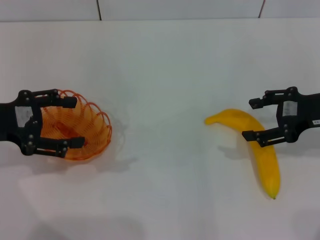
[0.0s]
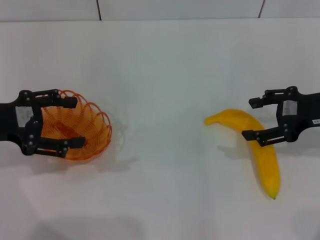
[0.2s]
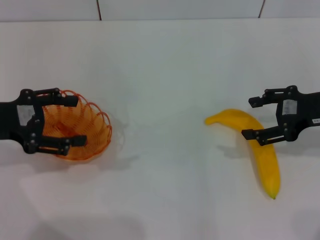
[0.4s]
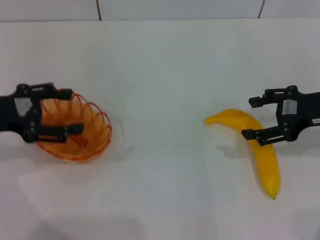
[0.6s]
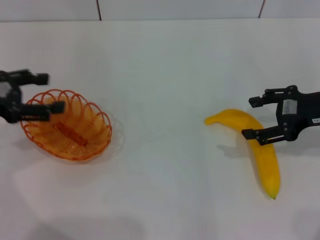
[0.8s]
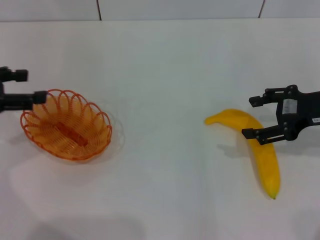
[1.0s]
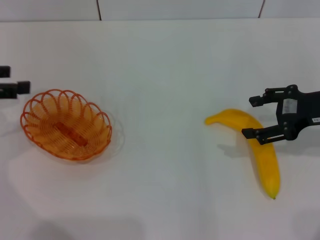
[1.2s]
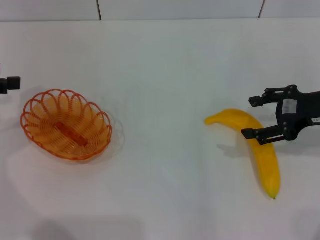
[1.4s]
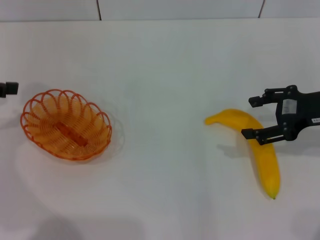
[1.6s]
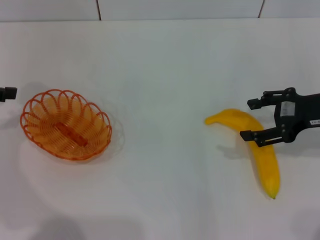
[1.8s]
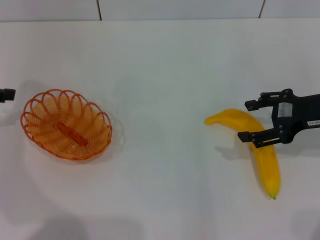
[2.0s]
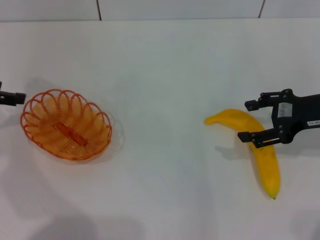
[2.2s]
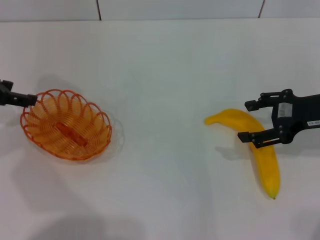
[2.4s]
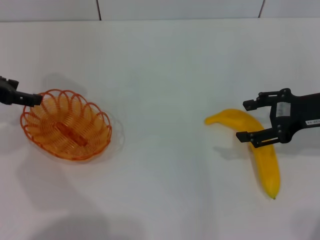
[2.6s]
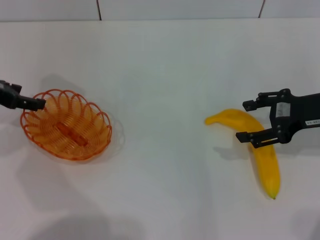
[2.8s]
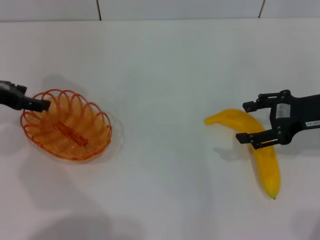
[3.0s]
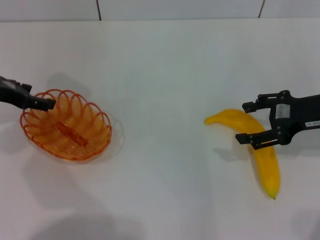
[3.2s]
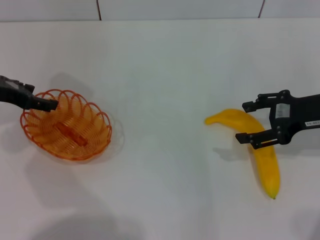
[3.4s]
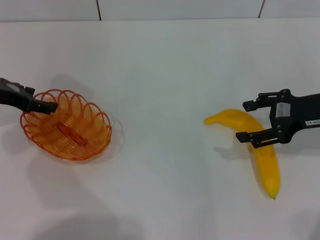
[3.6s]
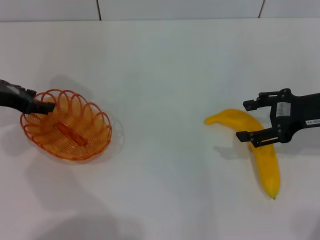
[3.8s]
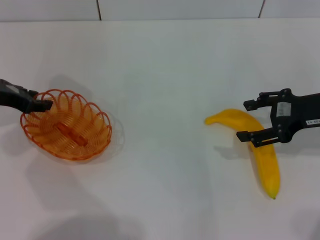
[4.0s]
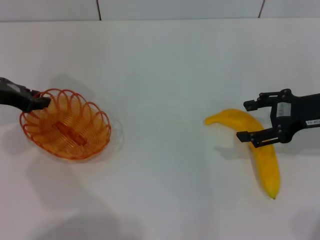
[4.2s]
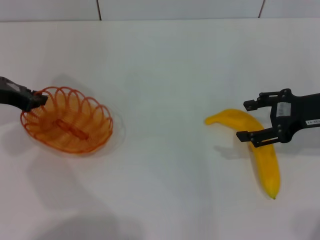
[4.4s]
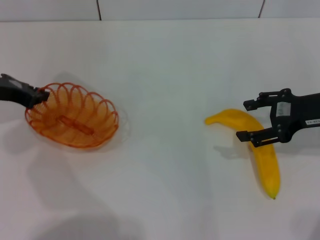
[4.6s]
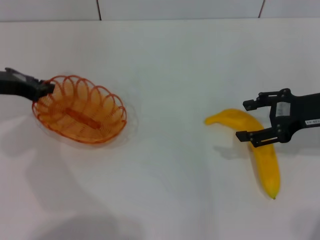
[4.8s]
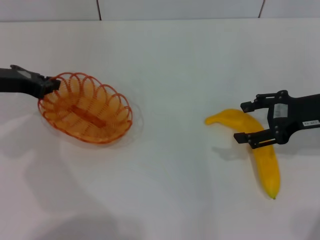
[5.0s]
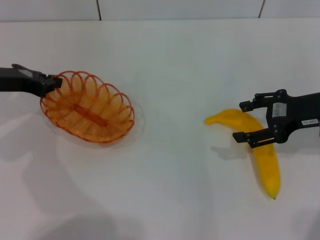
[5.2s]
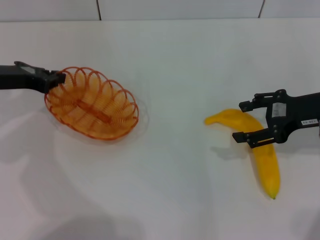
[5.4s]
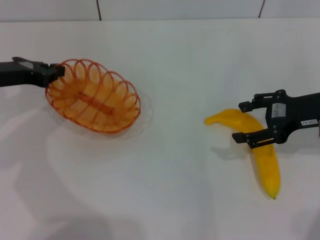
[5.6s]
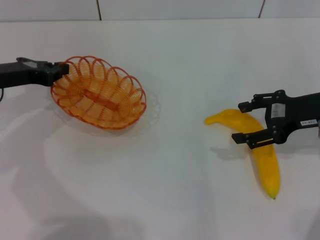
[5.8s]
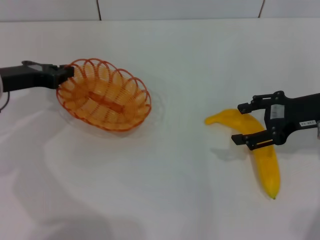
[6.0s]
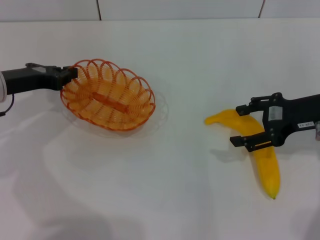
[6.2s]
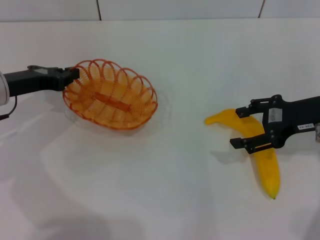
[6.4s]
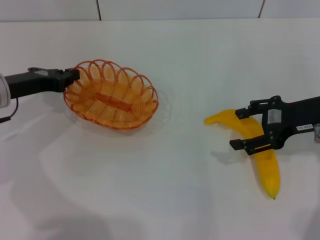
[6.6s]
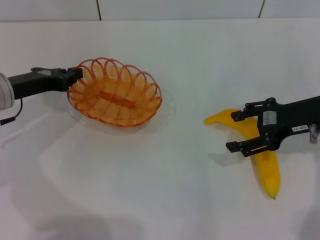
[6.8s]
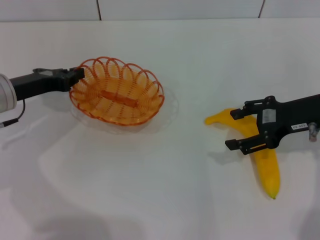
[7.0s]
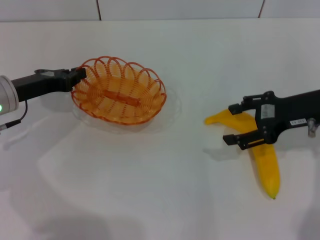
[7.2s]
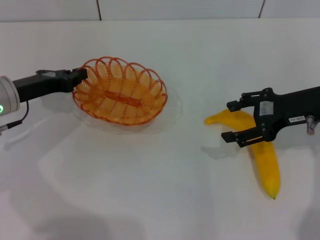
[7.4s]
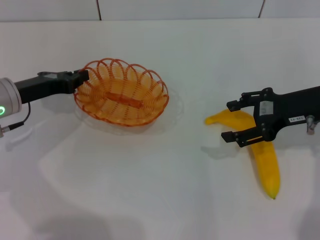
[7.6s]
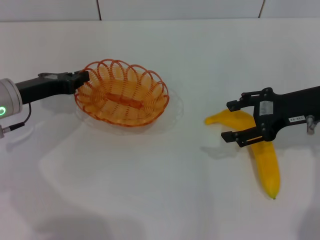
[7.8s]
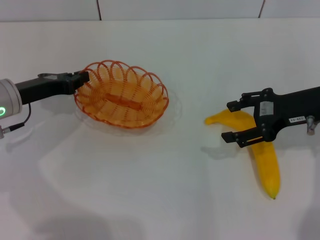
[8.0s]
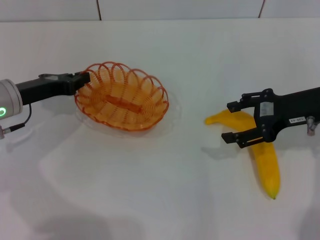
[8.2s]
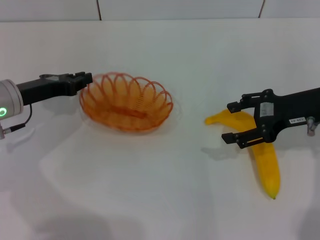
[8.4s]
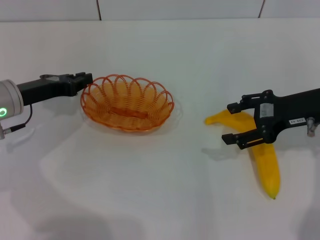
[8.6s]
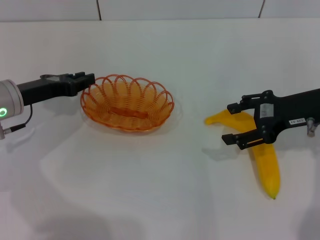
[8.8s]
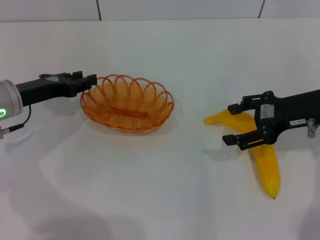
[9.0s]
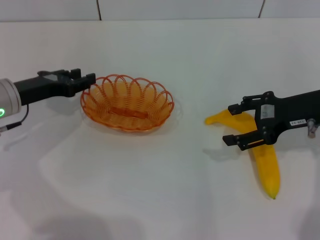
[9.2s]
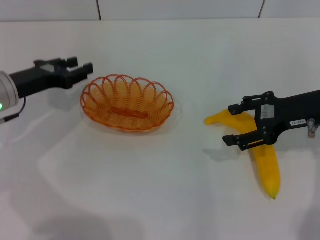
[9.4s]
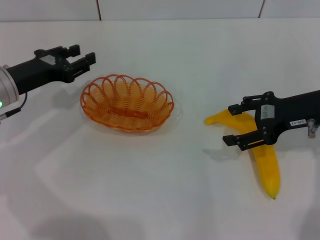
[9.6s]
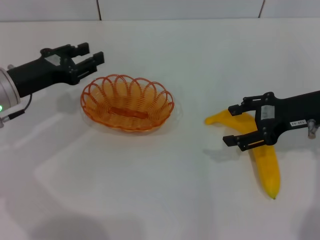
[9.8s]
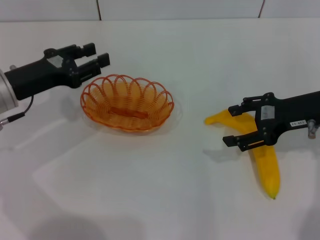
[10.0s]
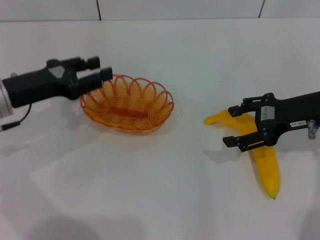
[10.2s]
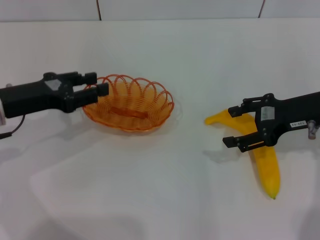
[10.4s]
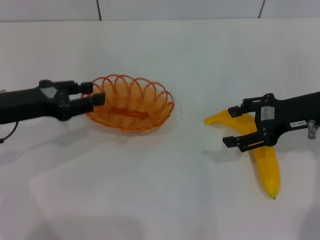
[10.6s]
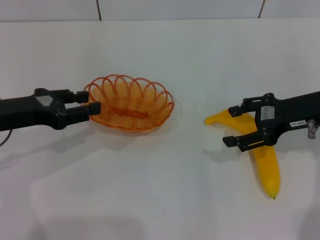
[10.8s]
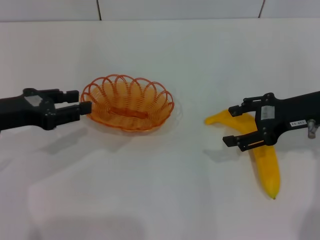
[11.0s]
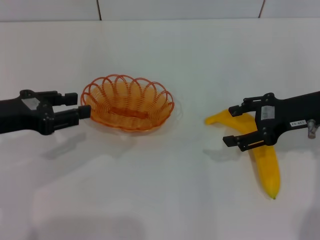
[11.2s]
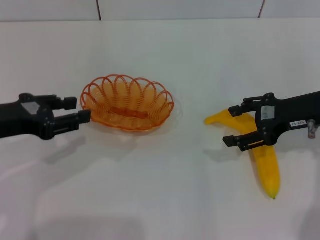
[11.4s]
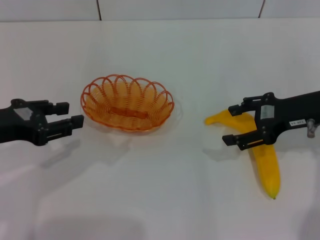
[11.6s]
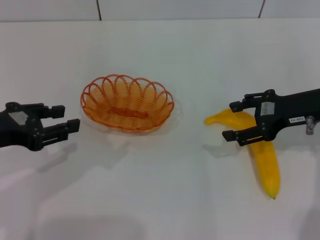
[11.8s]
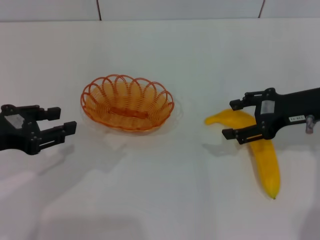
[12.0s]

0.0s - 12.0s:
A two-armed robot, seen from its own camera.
Step, 0.0s - 6.4s: Pick up the basket with the left gripper.
Step, 6.6s - 9.2s: Place the basket in the center of view with the left gripper.
0.0s - 1.6s: The left gripper shifts approximately 5 cm to the left.
1.6s - 3.0s: The left gripper is displaced to the right by some 5 cm.
3.0s - 4.4s: The left gripper closes.
6.0s - 7.6s: The grippers stay close to where they were, moving slightly.
7.6s - 9.0s: The left gripper opens.
9.0s - 10.4s: The left gripper ends up some 5 cm from where it was.
10.4s - 12.0s: The left gripper shifts about 10 cm backward.

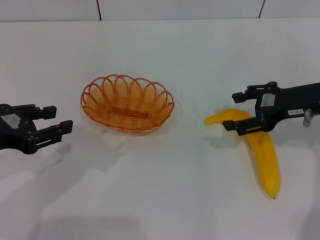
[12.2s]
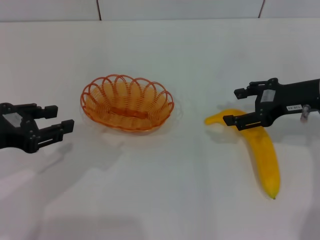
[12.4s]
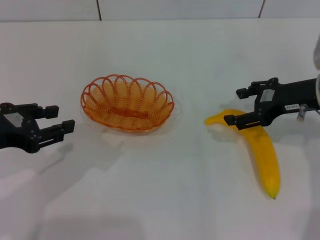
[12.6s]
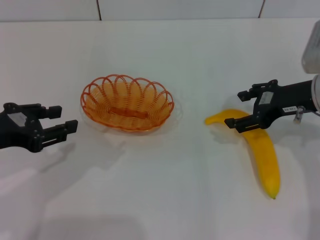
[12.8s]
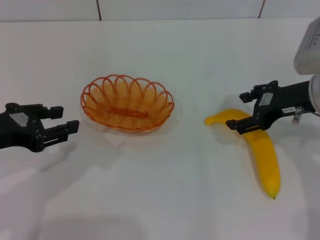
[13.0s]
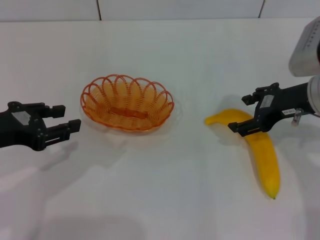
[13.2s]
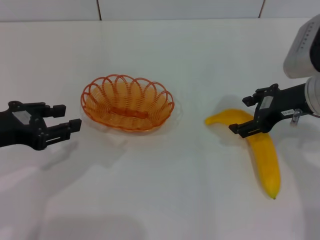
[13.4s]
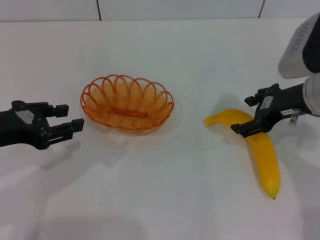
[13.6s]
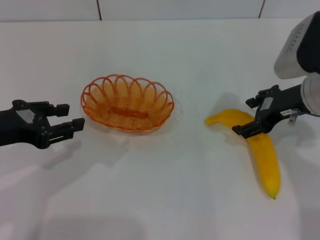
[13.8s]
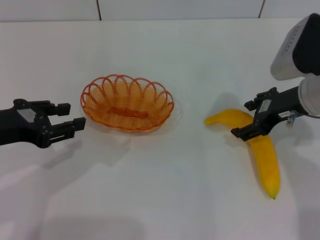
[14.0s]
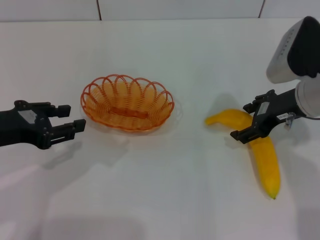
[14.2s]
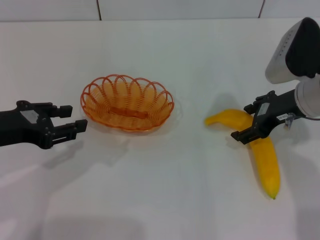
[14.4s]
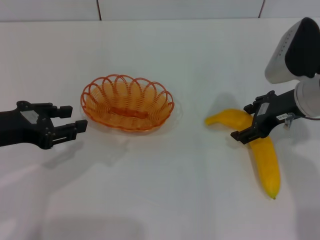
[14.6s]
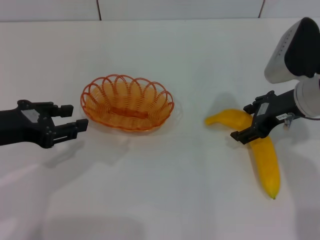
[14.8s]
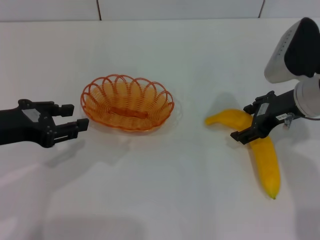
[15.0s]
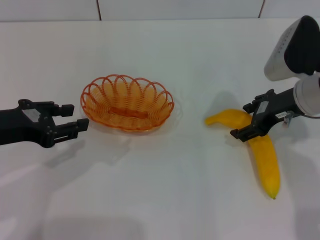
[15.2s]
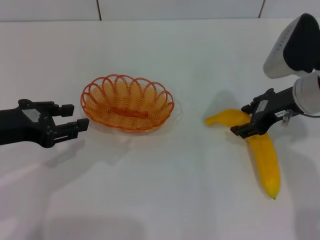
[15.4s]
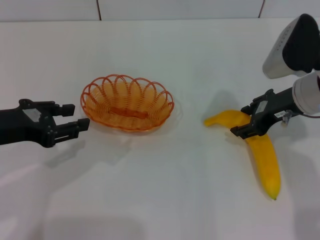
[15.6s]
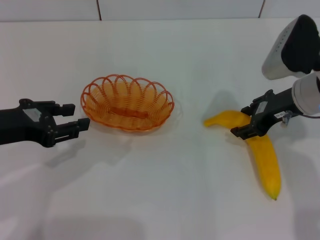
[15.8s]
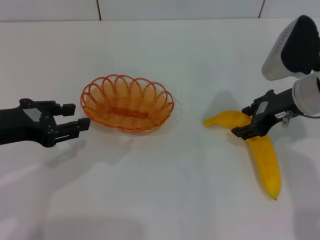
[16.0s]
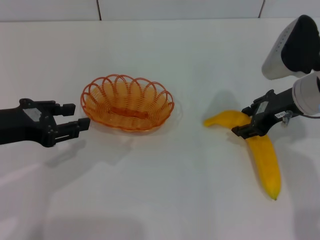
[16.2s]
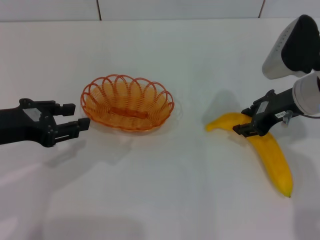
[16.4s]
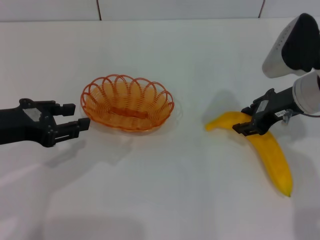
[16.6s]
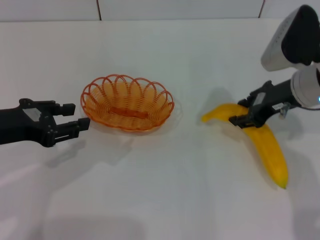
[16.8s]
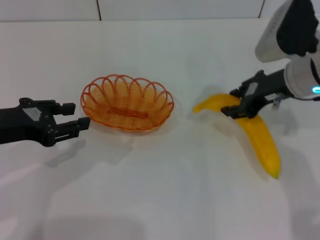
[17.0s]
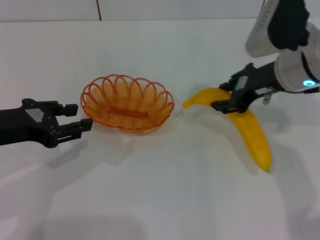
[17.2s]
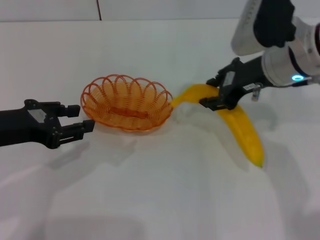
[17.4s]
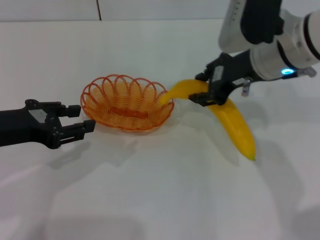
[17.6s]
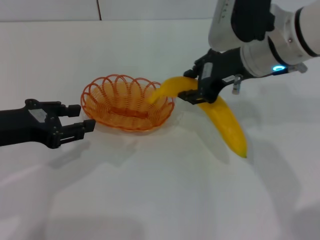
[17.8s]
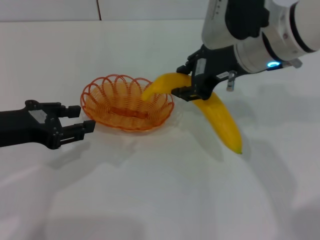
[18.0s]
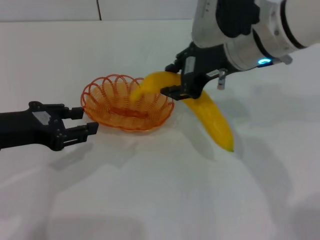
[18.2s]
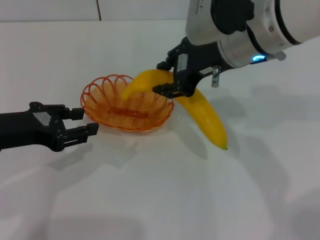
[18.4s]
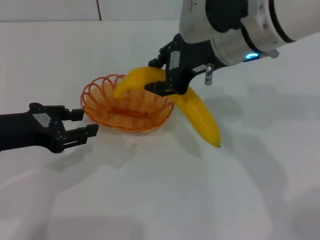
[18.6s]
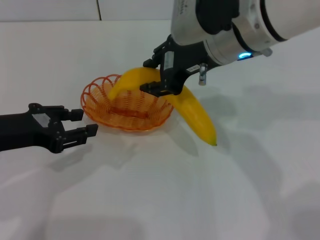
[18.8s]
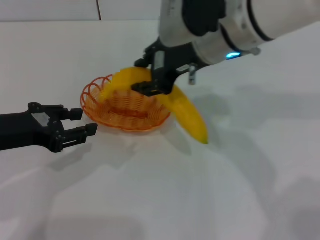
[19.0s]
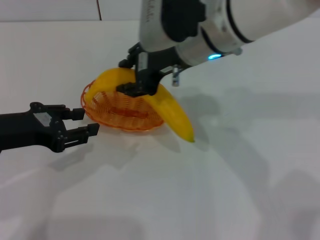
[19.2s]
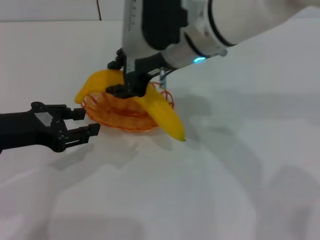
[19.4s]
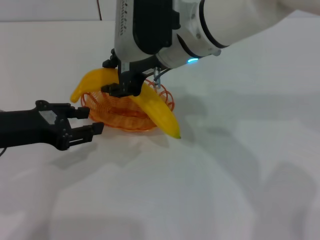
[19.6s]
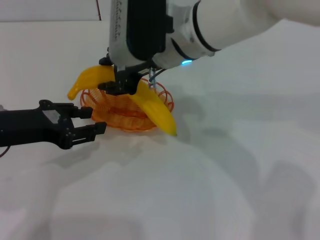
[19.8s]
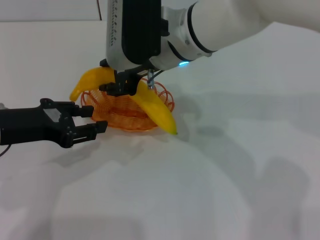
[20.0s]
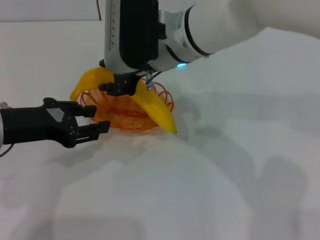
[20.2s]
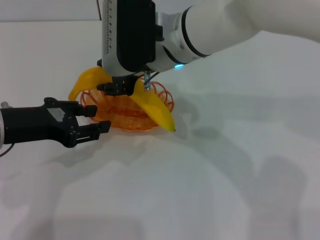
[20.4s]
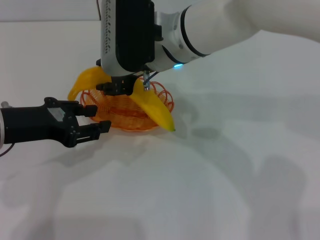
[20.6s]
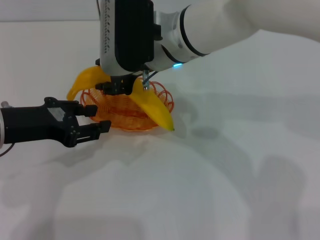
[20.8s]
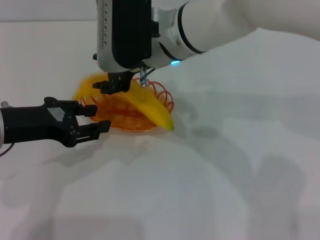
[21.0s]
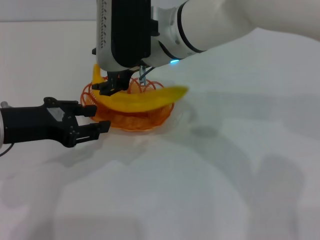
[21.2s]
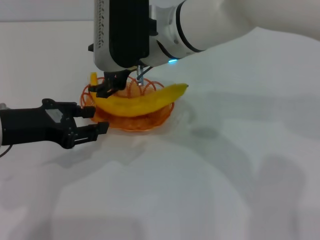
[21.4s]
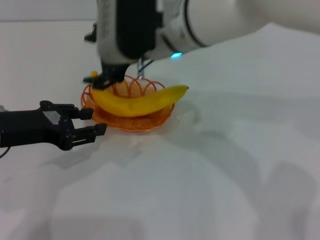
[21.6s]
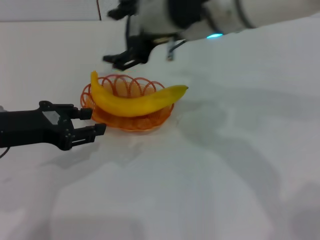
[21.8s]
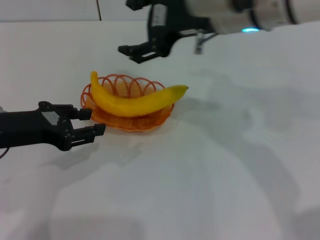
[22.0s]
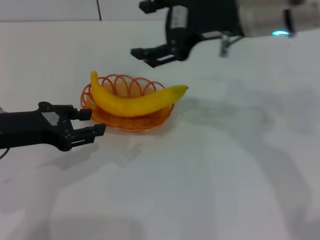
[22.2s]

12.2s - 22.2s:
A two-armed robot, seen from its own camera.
Step, 12.2s - 17.4s: Pick up the banana with the right gripper.
Step, 17.6s - 21.2s: Place the banana into the basket with the right gripper.
13.6s - 15.0s: There are only small adjustments of the grippers.
15.0s - 16.4s: The right gripper closes.
16.4s - 18.0s: The right gripper heads to the left and upward, covering about 10 cm.
18.0s - 19.4s: The right gripper is displaced to the left by roughly 10 cm.
19.4s - 20.8s: The grippers move only a little.
20.8s - 22.2s: The right gripper travels to the right and upward by about 15 cm, and opens up.
